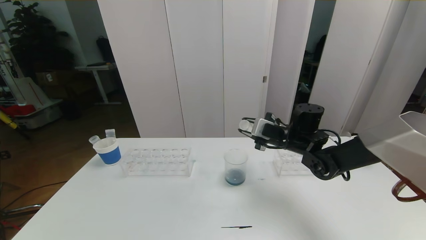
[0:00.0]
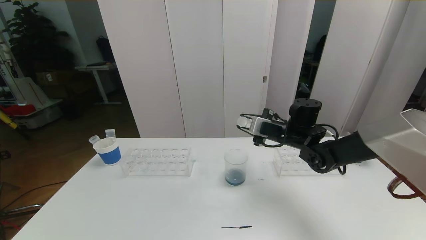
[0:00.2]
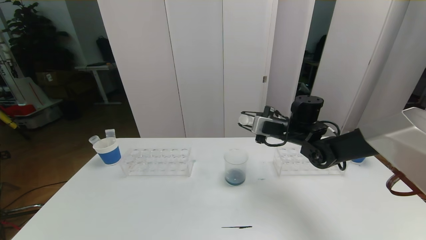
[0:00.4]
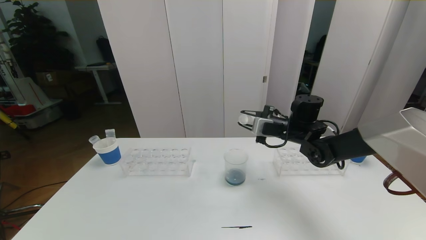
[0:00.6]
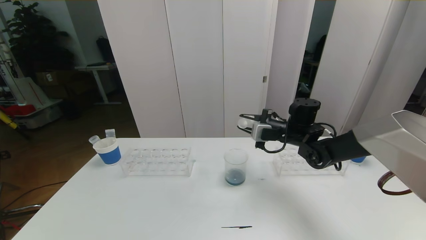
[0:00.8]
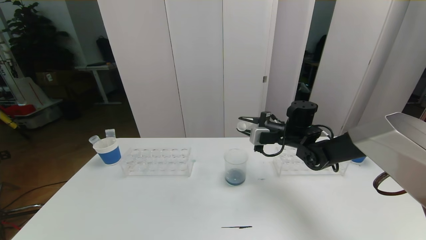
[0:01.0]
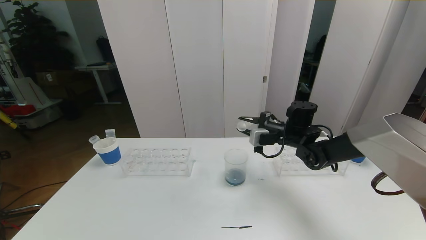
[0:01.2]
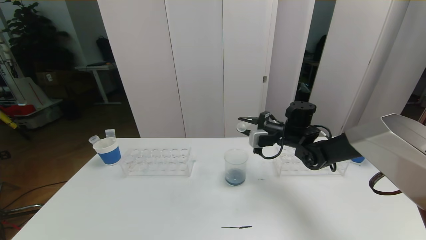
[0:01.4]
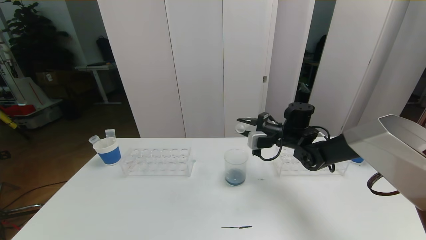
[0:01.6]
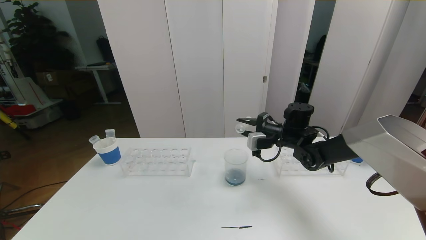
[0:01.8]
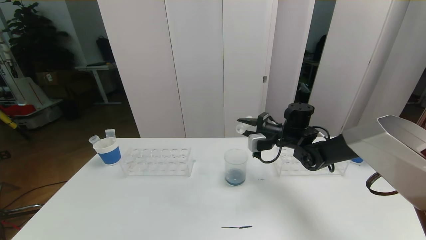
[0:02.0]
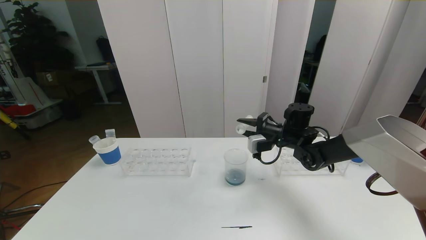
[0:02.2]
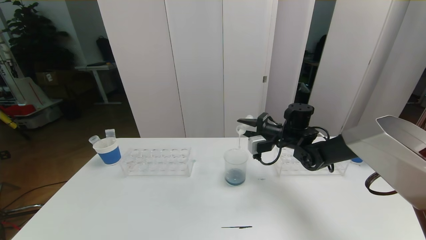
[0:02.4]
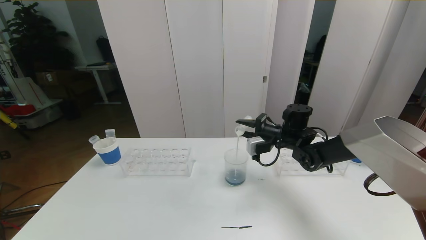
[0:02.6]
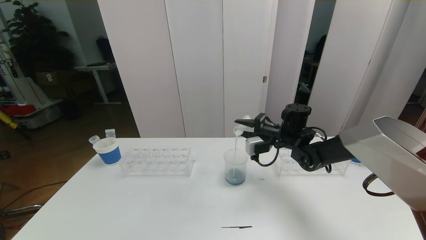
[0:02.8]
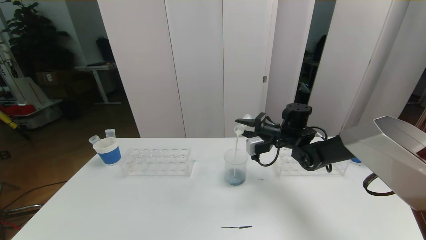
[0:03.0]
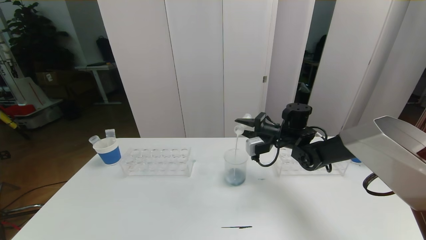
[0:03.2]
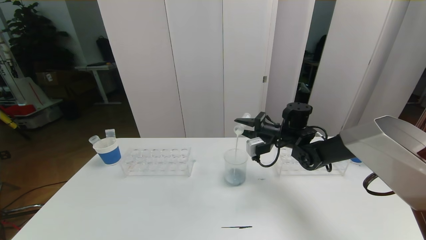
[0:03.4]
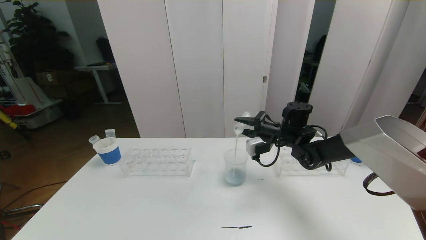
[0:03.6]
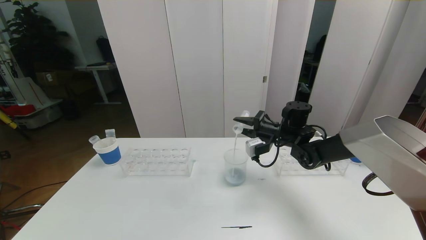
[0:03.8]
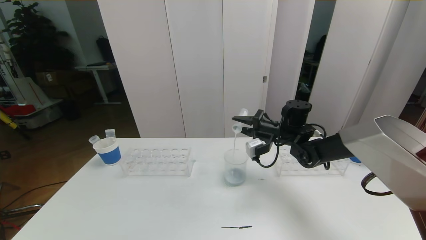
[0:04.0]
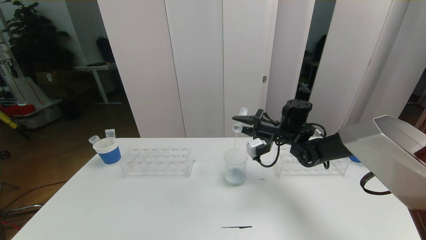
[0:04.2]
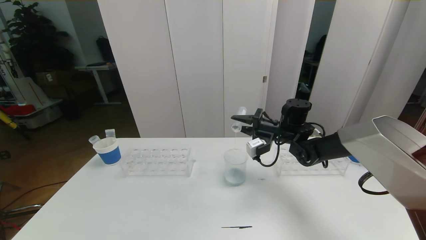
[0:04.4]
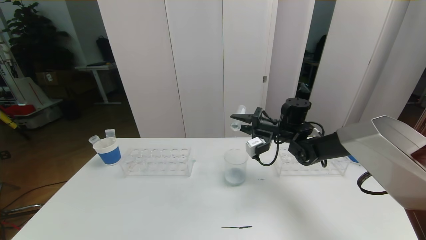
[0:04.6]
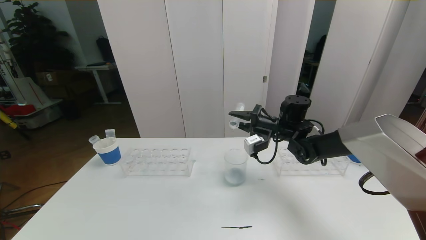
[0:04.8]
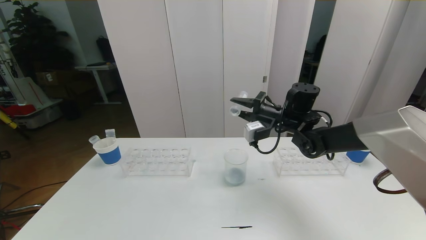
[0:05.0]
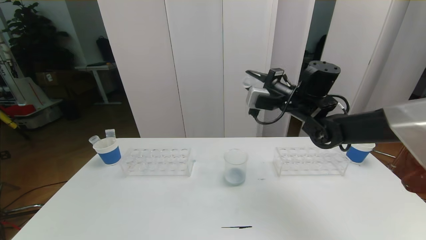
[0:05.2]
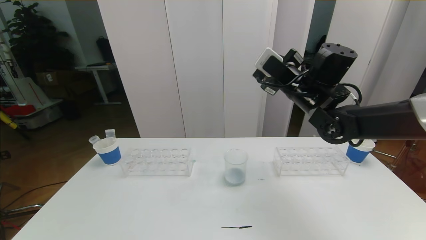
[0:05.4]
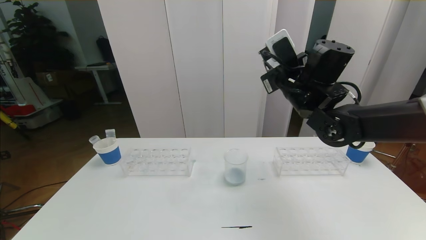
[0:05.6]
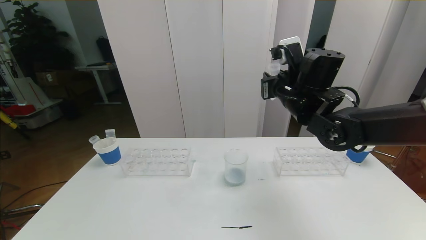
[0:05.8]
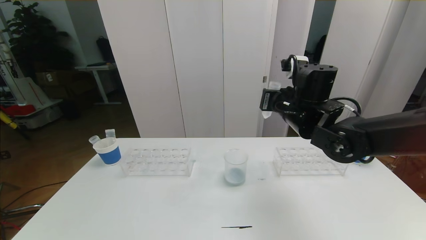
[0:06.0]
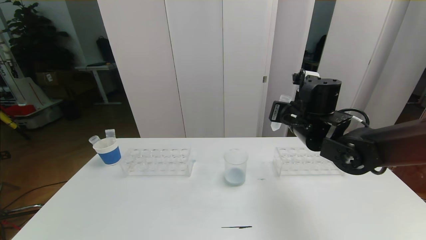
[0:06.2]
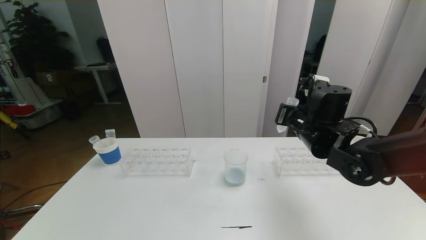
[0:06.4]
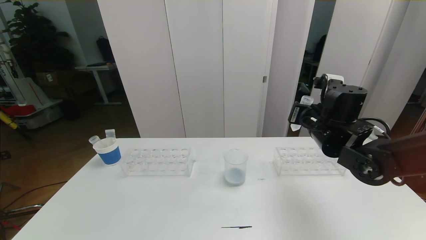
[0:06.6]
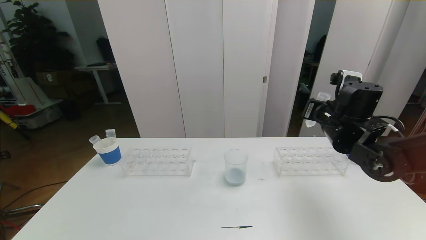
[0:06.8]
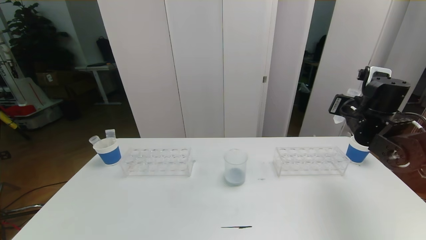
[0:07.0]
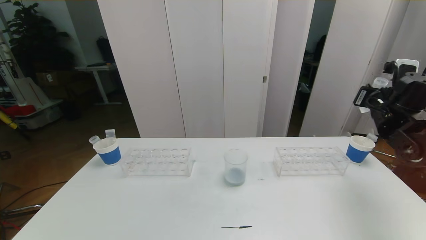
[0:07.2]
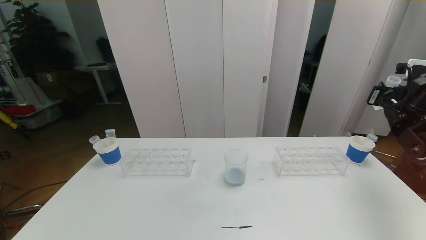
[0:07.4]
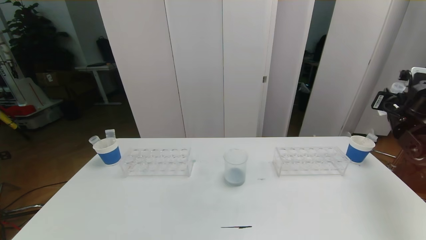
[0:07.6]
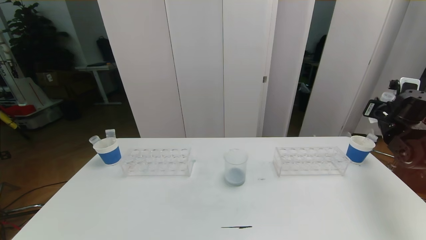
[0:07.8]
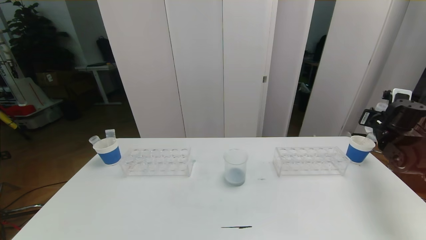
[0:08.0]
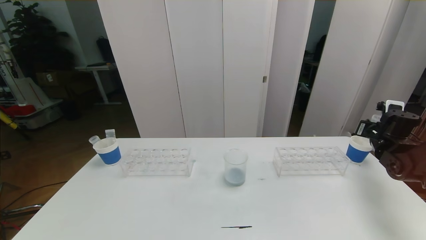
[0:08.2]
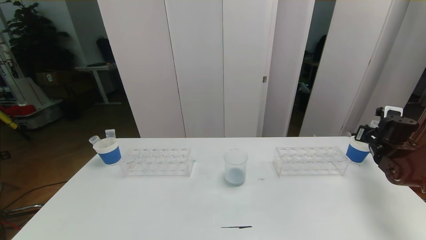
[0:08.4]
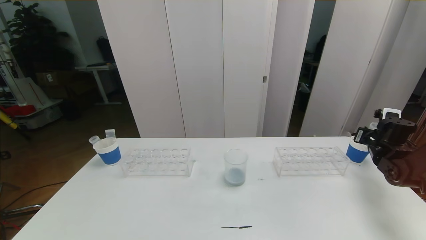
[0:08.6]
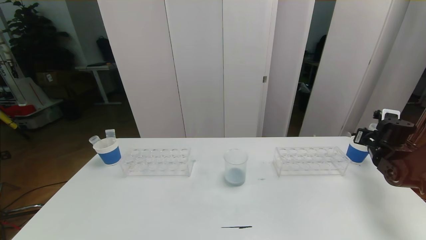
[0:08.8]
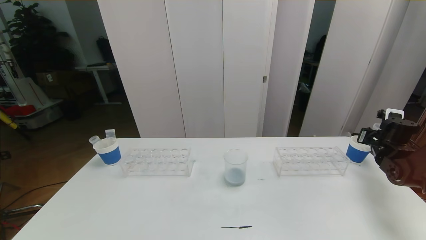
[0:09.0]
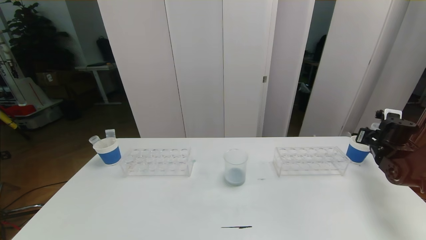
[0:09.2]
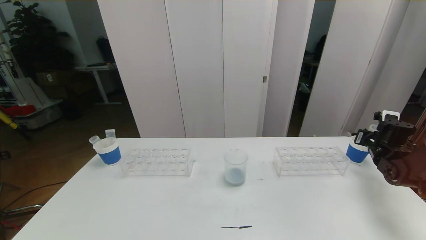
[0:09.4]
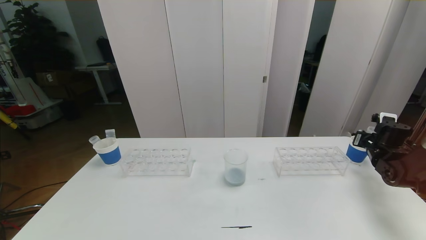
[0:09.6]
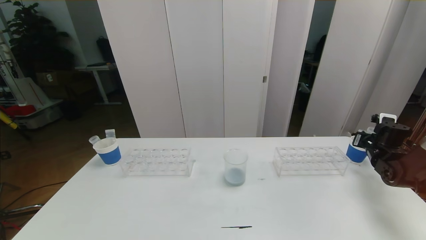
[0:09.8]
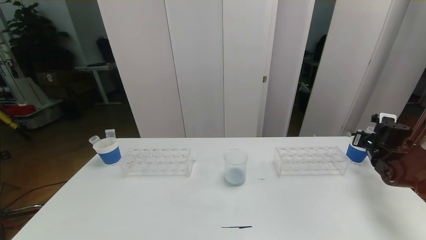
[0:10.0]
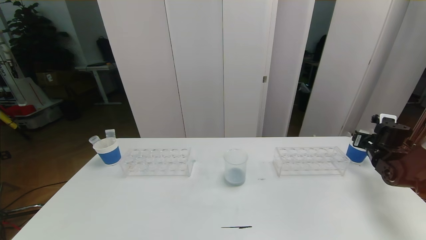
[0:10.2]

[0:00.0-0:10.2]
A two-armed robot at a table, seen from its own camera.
Task of the whole recording: pick up the test tube with red pigment the test tube with blue pigment and the test tube with white pigment by grippers and pour them into the beaker.
0:01.4 to 0:03.0: The grippers move only a little.
0:03.0 to 0:04.4: The grippers stay close to where they were, moving slightly.
0:04.4 to 0:05.8: The right gripper heads upward and backward, covering about 15 cm.
0:05.8 to 0:07.2: The right gripper moves to the right, about 20 cm.
0:07.2 to 0:08.8: The right gripper is displaced downward and to the right by roughly 15 cm.
0:08.8 to 0:10.2: The right gripper opens up.

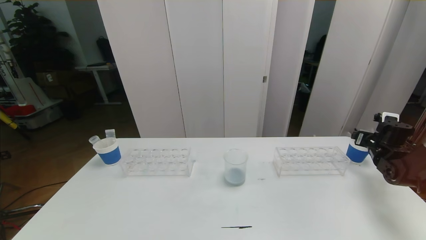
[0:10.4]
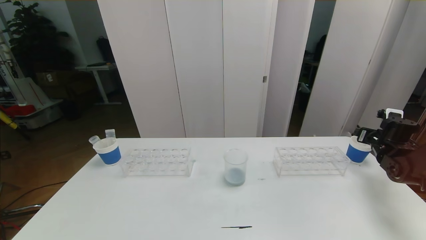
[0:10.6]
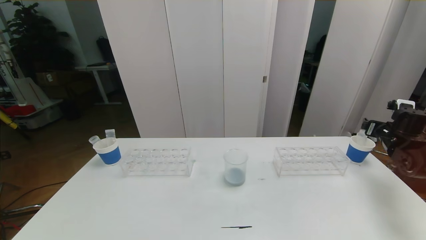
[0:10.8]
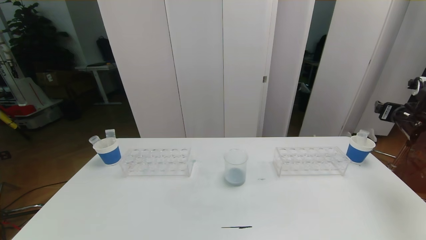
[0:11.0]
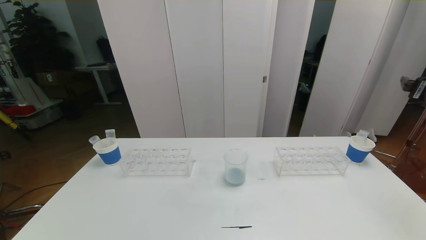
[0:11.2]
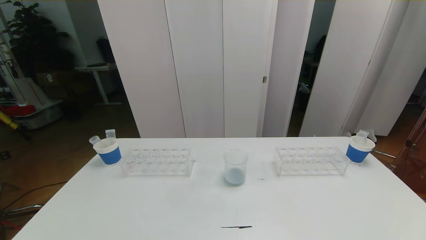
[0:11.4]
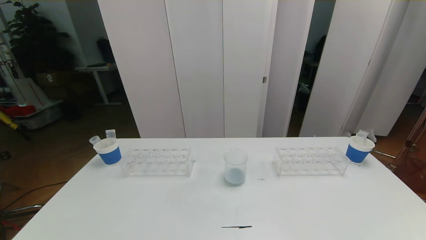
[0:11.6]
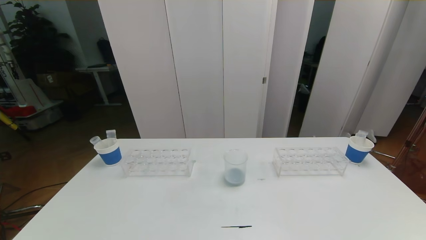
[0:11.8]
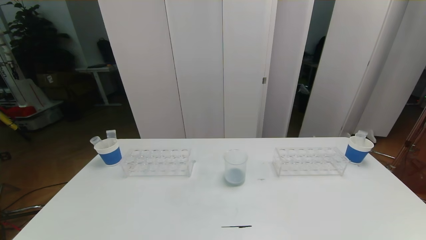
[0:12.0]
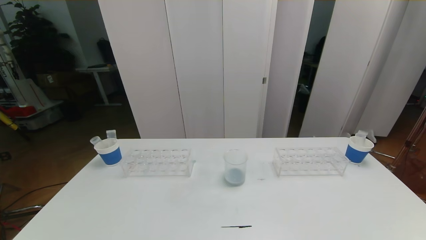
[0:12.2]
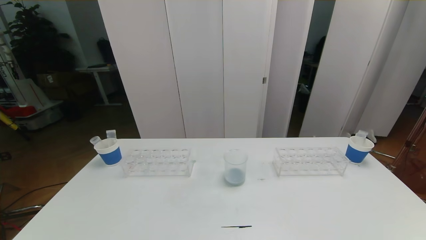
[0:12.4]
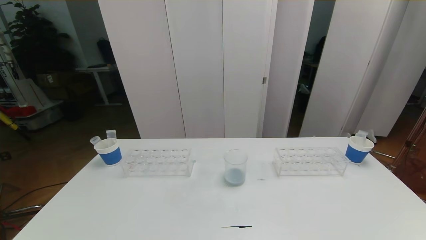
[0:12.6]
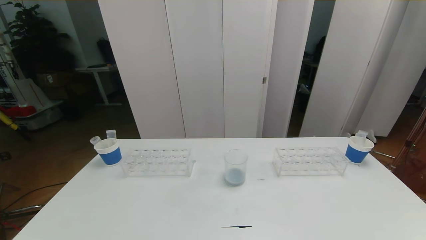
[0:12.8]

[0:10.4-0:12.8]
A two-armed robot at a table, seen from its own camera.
Task of the whole recording: pick up the test tube with red pigment the test tube with blue pigment and the test tube with white pigment by grippers and pour them into the beaker.
0:10.4 to 0:11.6: The right gripper moves backward and upward, roughly 40 cm.
